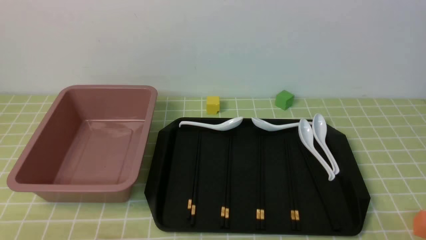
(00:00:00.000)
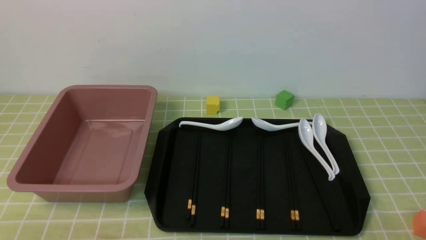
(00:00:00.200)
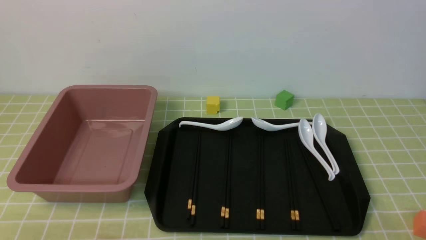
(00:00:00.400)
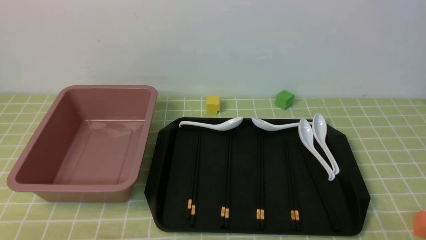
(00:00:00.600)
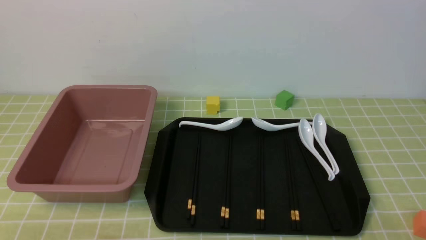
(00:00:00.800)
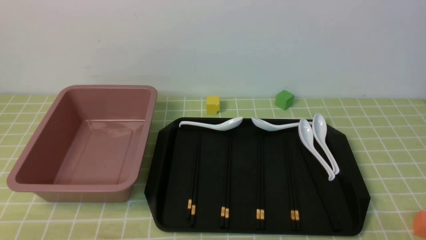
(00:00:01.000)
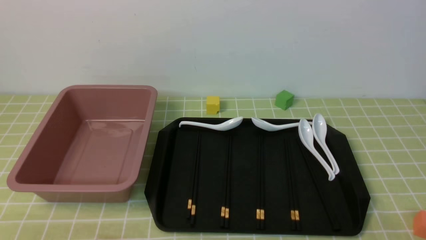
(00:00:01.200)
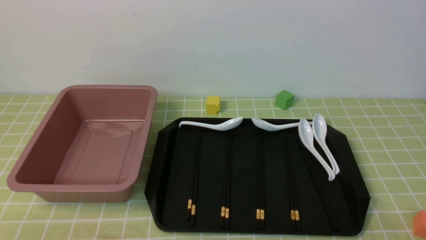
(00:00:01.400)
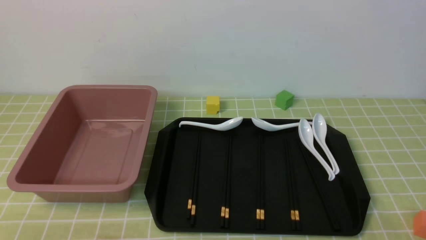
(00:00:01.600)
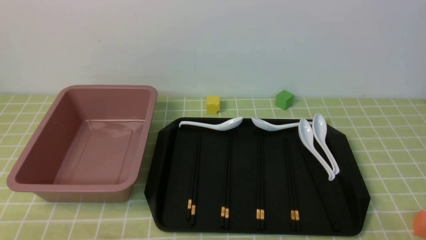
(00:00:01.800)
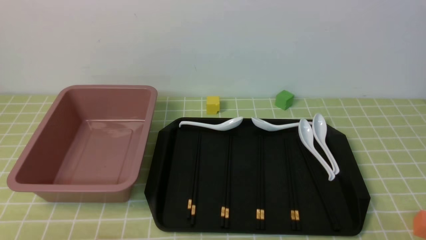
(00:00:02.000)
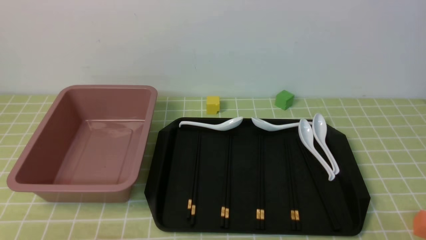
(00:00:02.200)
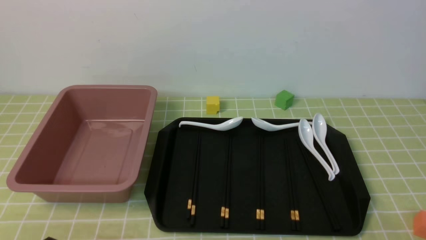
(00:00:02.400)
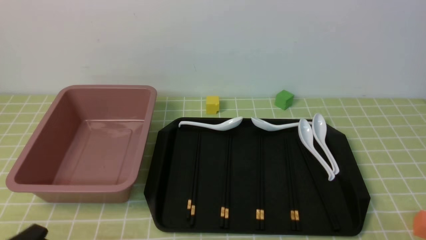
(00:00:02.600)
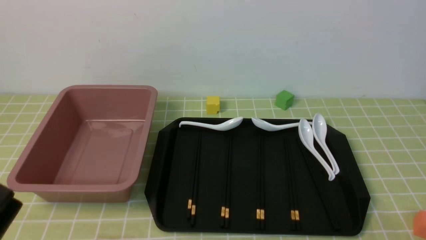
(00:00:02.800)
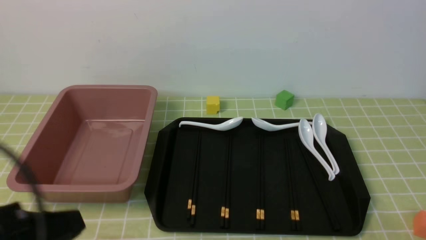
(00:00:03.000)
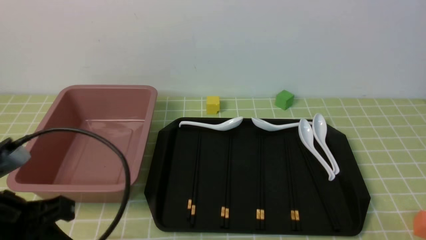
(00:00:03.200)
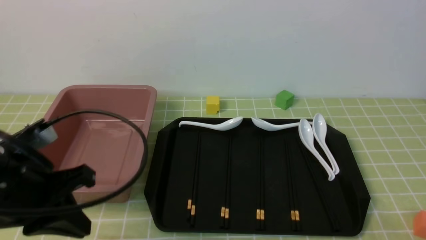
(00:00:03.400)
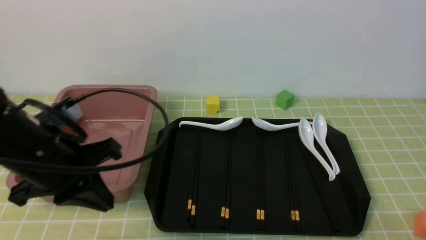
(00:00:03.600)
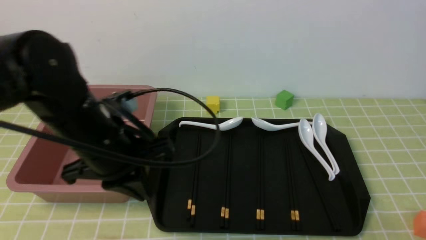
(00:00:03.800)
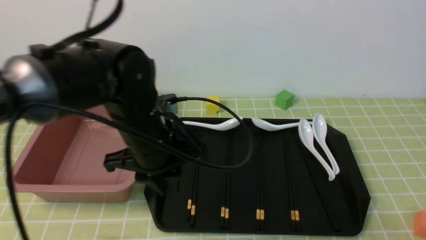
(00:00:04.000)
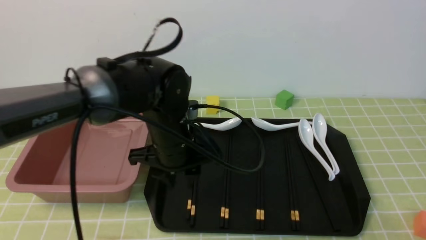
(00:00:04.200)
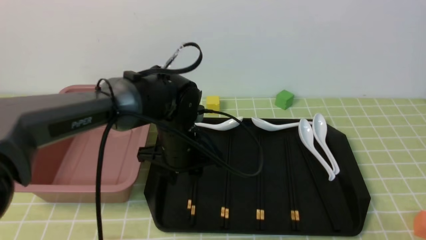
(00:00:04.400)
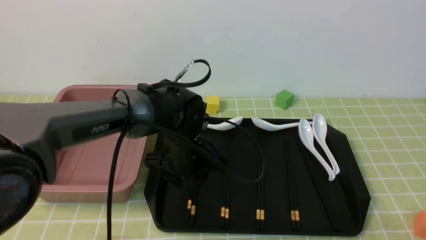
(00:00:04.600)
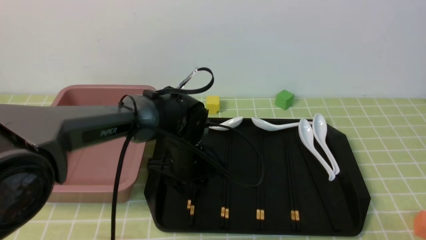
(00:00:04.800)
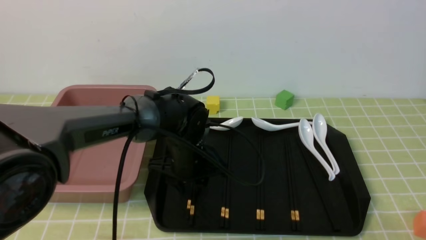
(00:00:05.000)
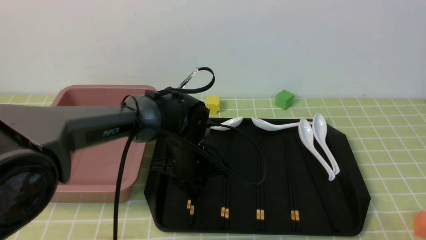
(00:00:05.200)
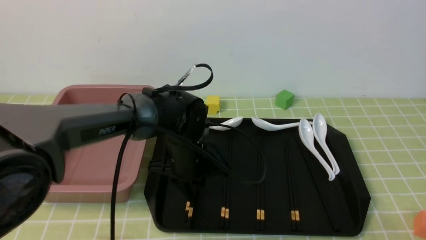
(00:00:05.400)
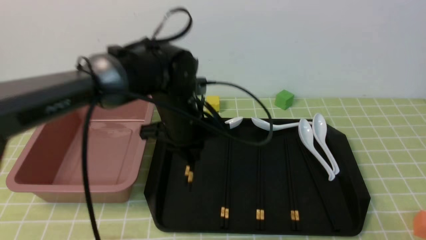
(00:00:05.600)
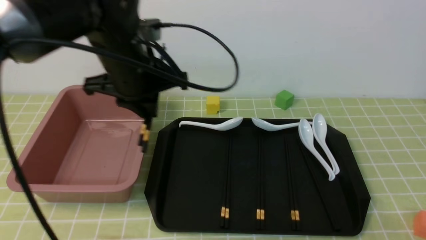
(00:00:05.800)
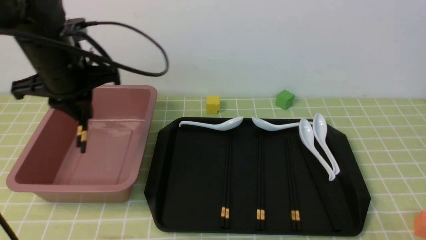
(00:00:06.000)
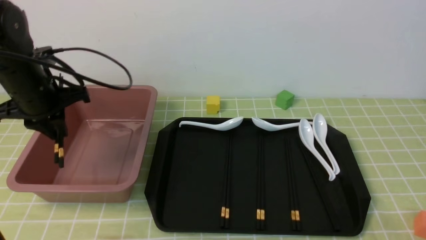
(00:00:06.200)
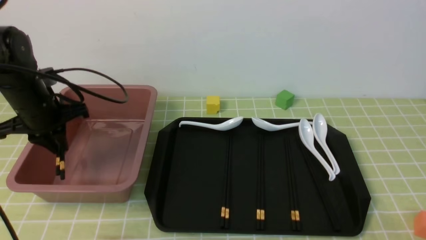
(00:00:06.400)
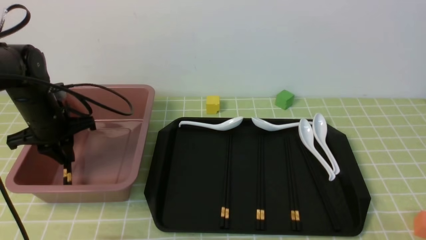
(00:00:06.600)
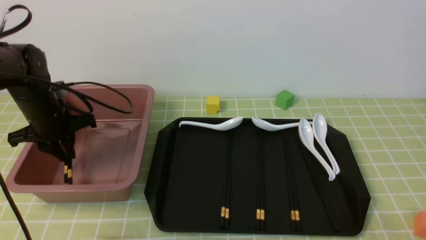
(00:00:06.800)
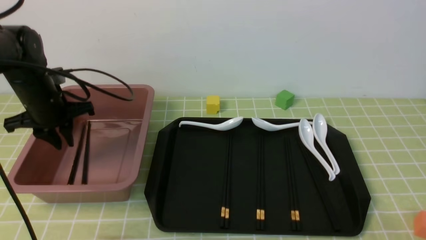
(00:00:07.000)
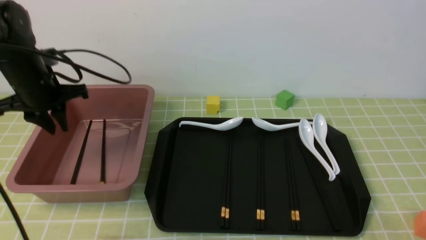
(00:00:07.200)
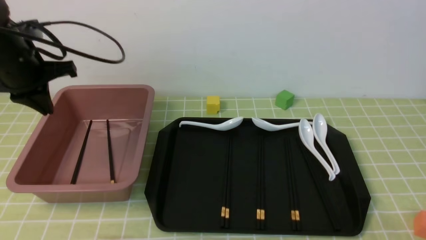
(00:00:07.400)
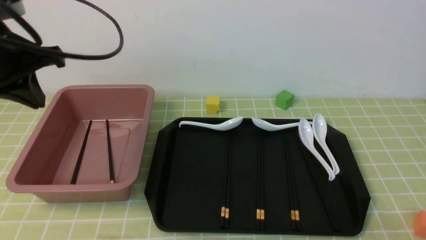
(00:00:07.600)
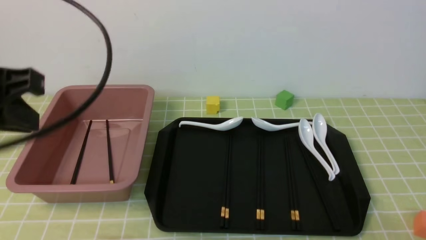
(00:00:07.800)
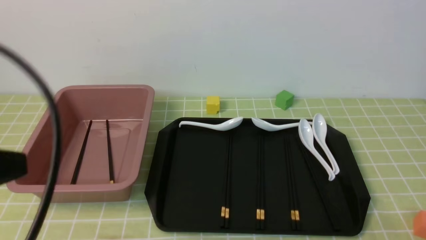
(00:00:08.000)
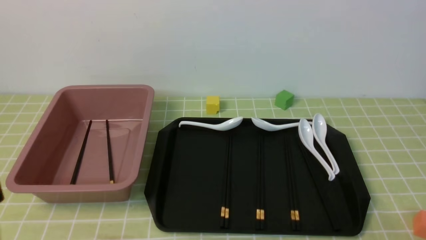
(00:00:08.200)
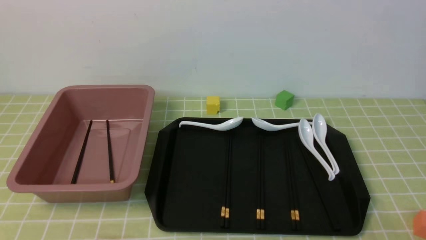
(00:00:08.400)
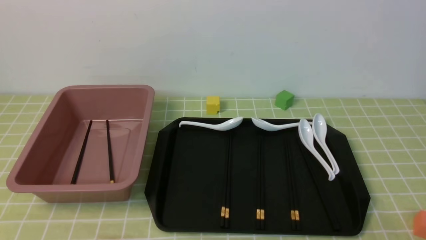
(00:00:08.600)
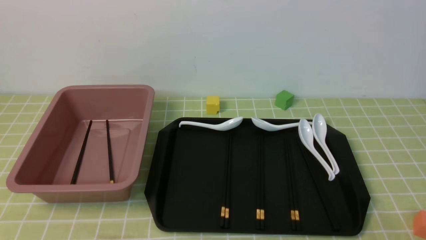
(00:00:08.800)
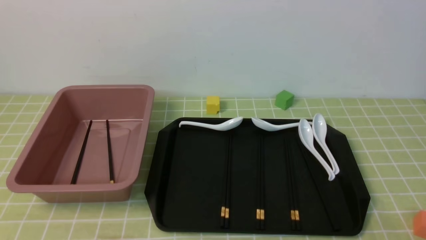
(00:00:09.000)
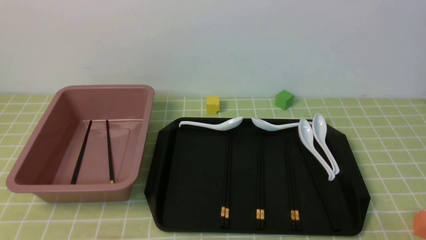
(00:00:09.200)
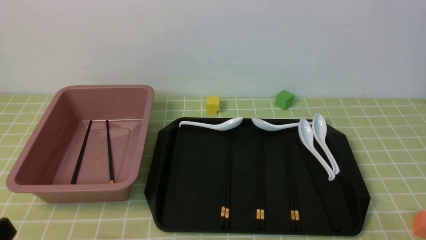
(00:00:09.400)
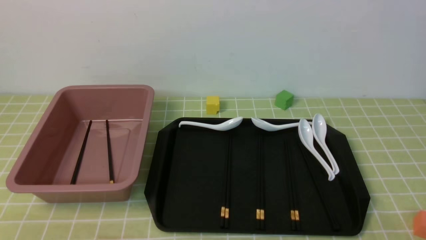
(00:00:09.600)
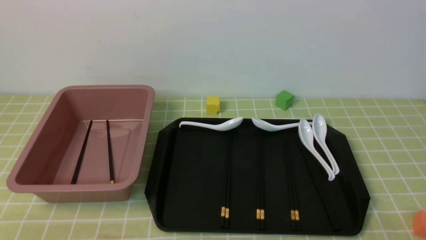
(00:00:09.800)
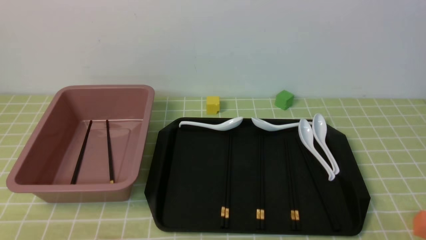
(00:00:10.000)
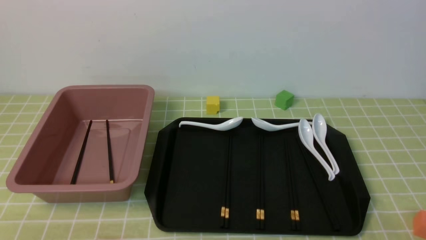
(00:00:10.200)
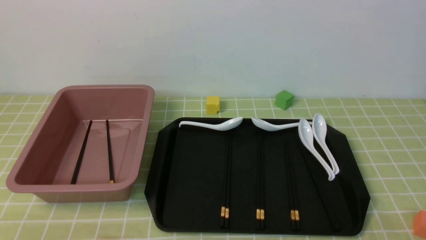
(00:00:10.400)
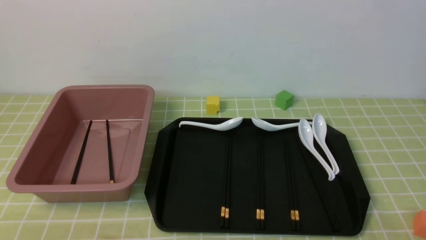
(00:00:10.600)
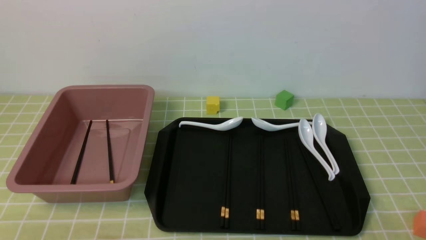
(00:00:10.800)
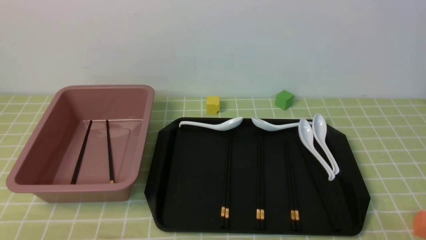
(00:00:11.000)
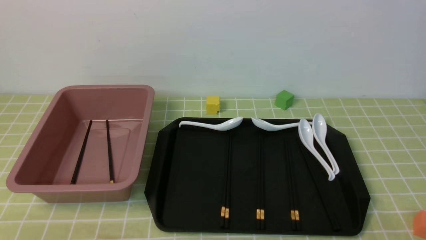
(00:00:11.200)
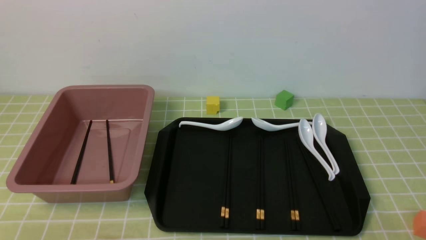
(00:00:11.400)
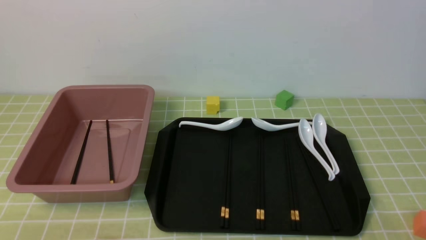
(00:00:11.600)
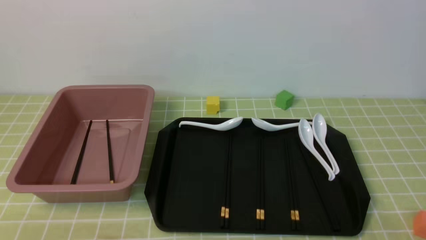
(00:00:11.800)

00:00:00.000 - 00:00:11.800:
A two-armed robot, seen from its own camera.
Step, 00:00:00.000 - 00:00:05.600: use the left arm to grab a pair of chopsticks.
Step, 00:00:05.800 - 00:00:07.200: use the left arm to put the chopsticks into the lunch box.
00:00:01.400 - 00:00:03.000: The left gripper shifts about 10 cm upward, and closes its fingers.
00:00:03.000 - 00:00:04.400: The left gripper heads forward and to the right, covering approximately 30 cm, and opens its fingers.
00:00:04.400 - 00:00:06.000: The left gripper shifts some 15 cm to the left and upward, and closes up.
00:00:06.000 - 00:00:07.400: The left gripper heads to the left, covering some 10 cm.
00:00:07.400 - 00:00:08.800: The left gripper shifts some 40 cm backward.
00:00:10.400 - 00:00:11.800: Neither gripper changes place.
